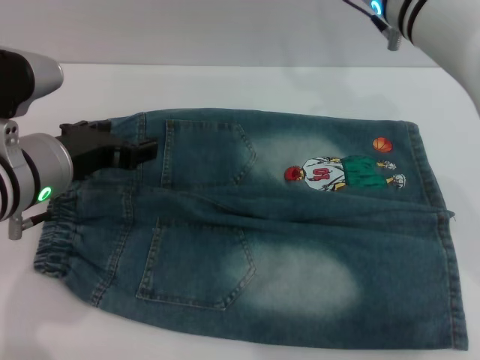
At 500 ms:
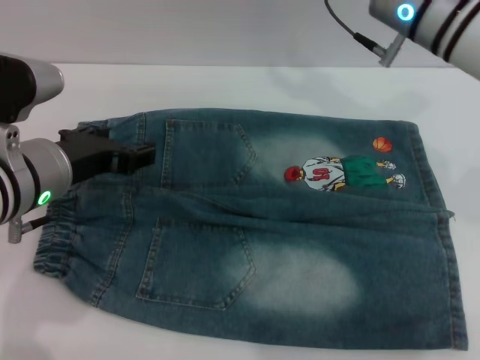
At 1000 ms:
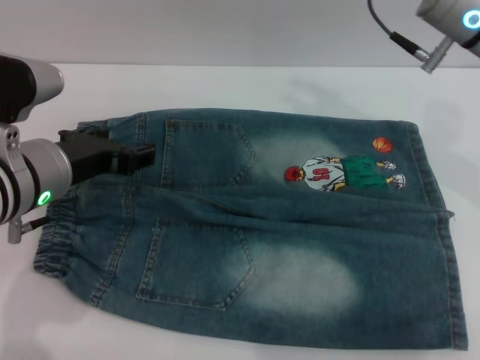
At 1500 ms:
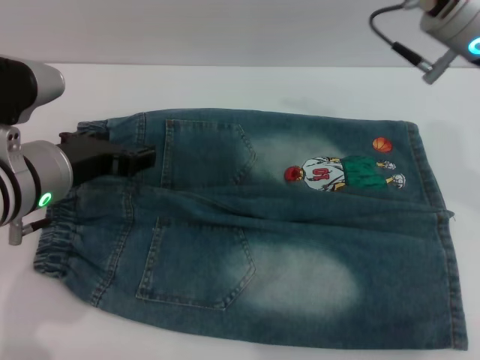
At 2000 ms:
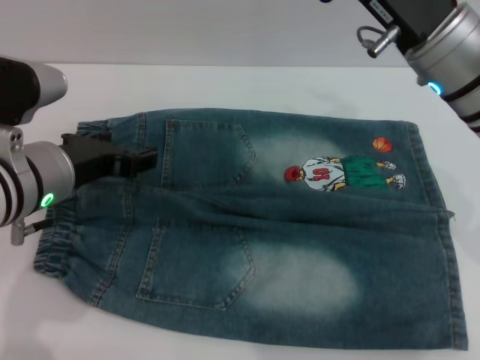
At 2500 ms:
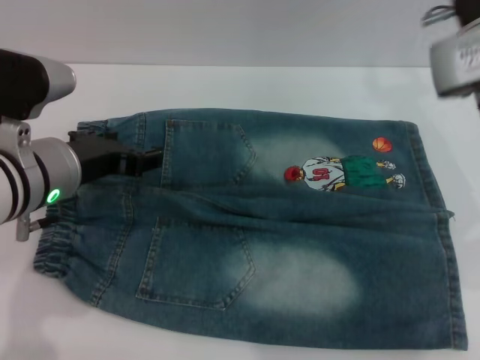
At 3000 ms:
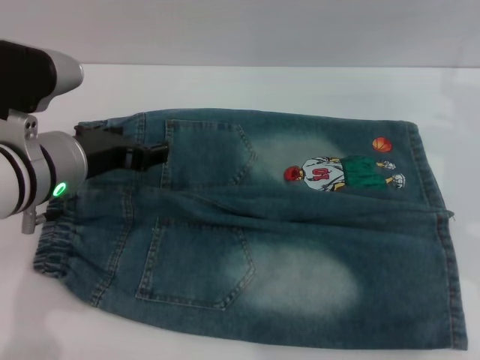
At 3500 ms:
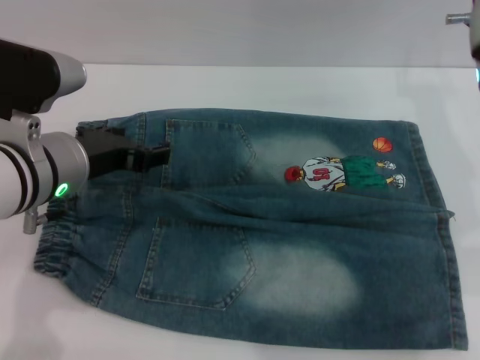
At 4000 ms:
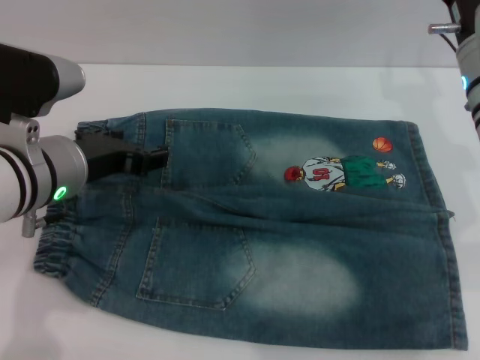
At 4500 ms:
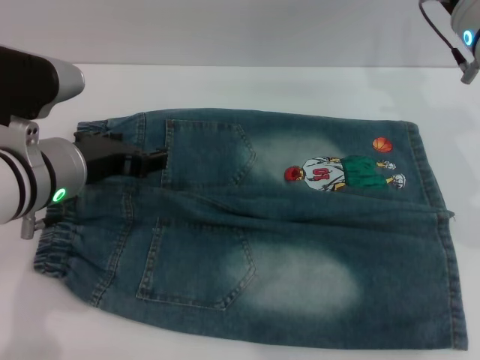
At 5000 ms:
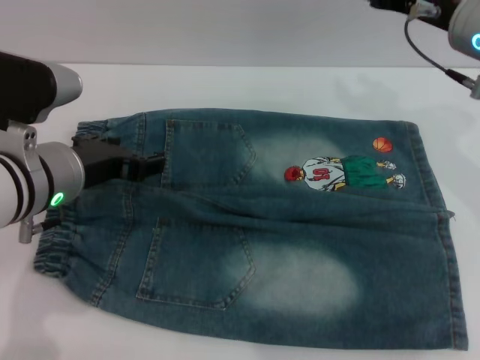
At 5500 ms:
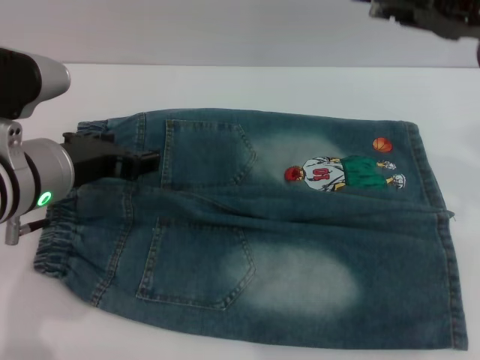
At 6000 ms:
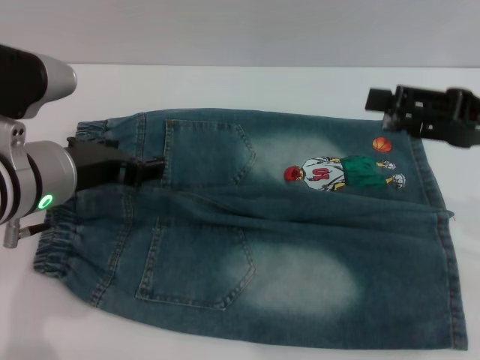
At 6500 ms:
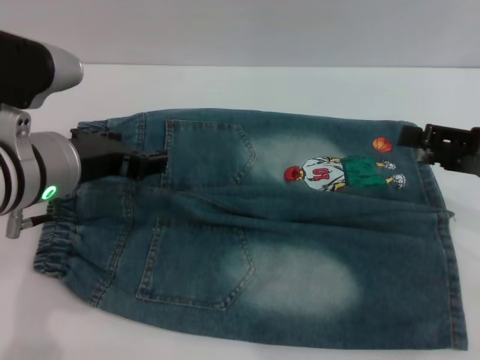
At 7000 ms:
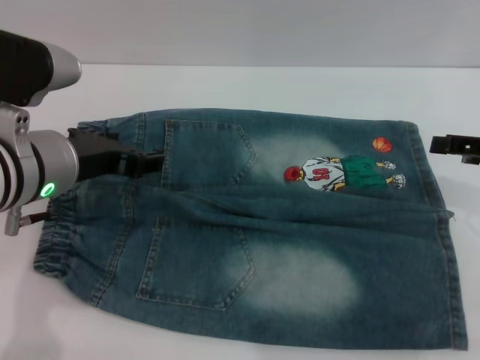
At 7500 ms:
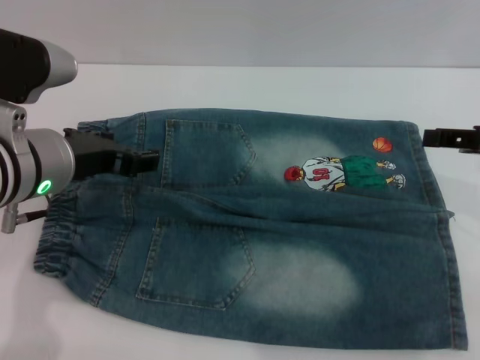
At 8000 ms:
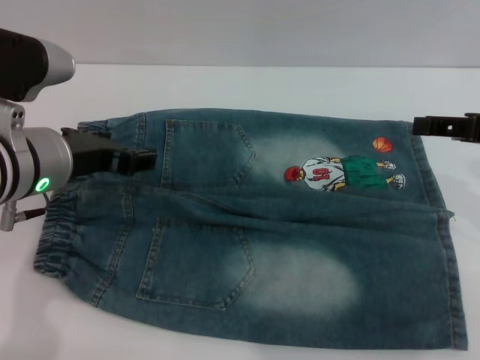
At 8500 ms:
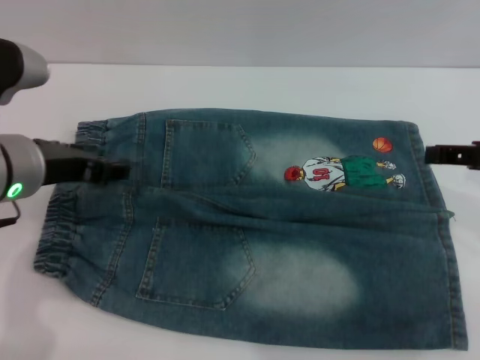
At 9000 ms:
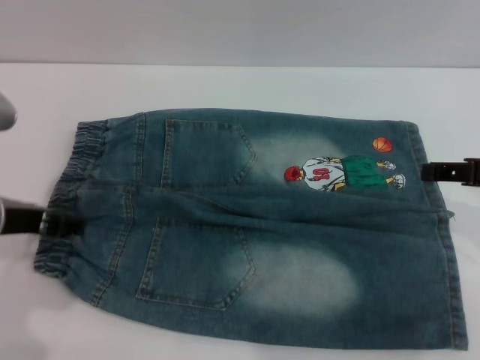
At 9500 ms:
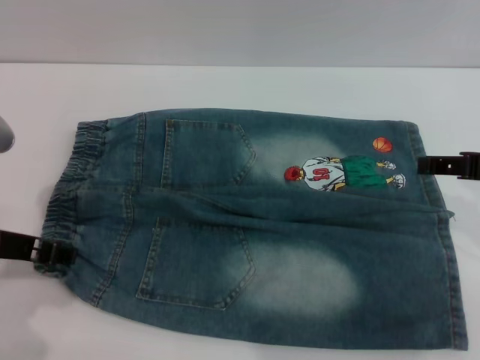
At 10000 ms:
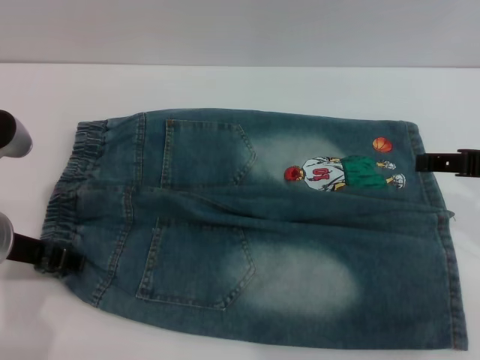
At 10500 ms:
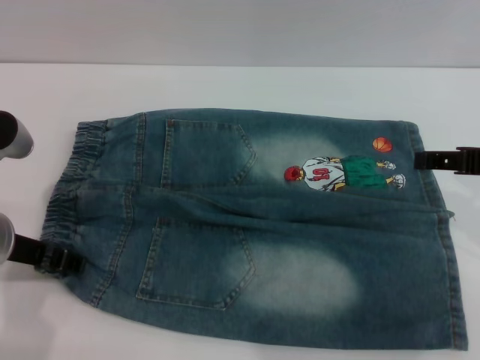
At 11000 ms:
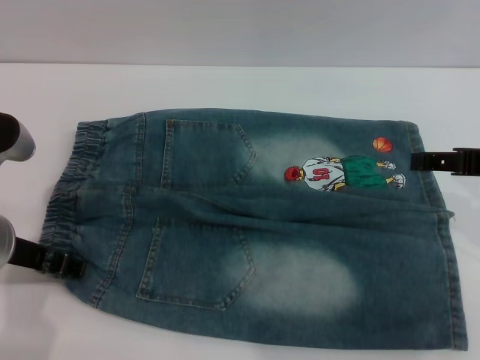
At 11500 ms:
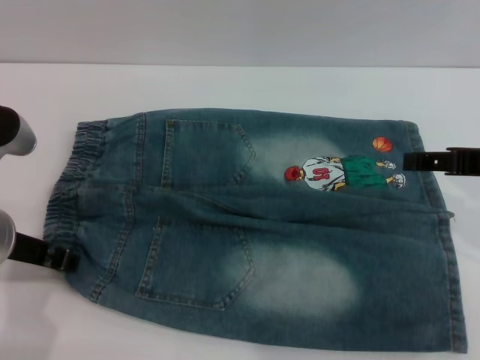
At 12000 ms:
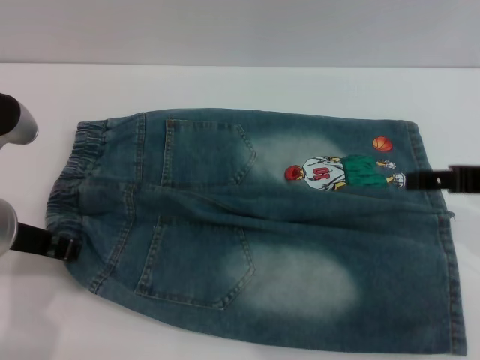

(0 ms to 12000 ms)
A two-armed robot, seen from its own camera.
0 ms - 2000 ms: The right gripper shifts approximately 5 cm backward.
4000 ms - 6000 ms: The right gripper travels backward, to the right and upward by some 15 cm.
8000 ms - 10000 ms: The left gripper changes place by approximately 5 cm.
10000 ms - 12000 ms: The left gripper closes its fingers.

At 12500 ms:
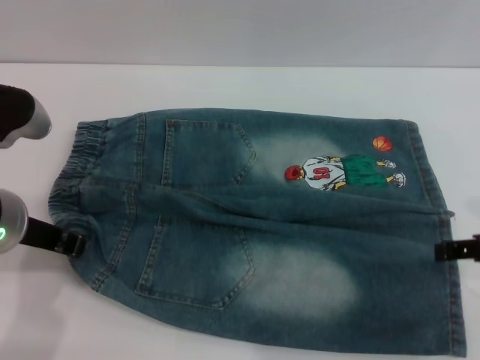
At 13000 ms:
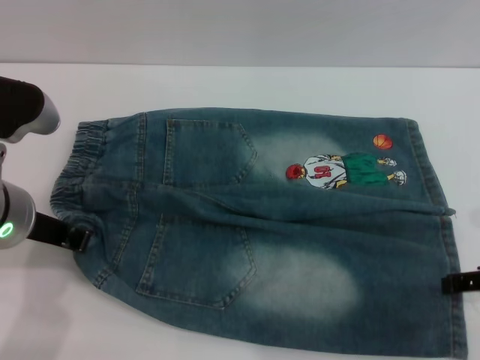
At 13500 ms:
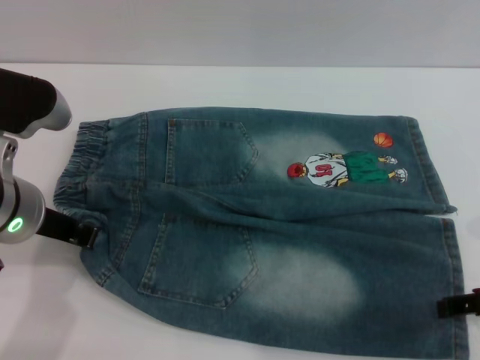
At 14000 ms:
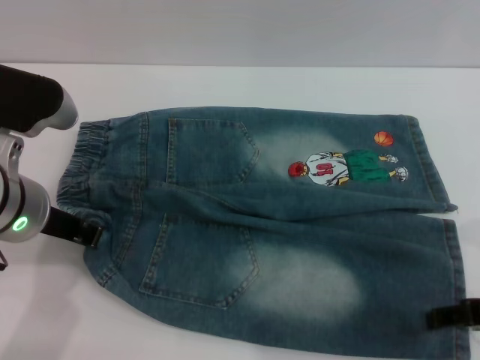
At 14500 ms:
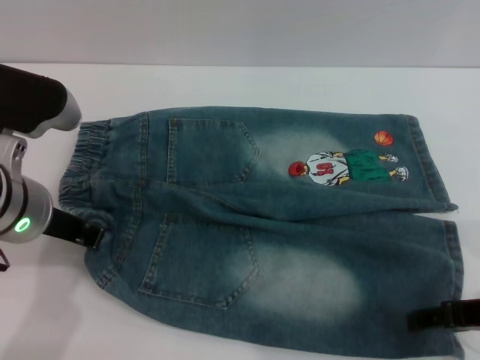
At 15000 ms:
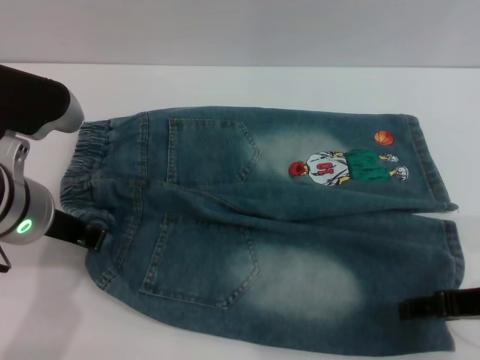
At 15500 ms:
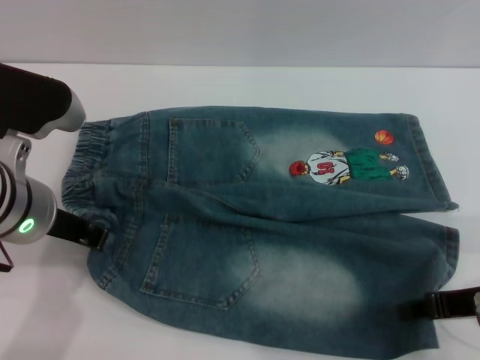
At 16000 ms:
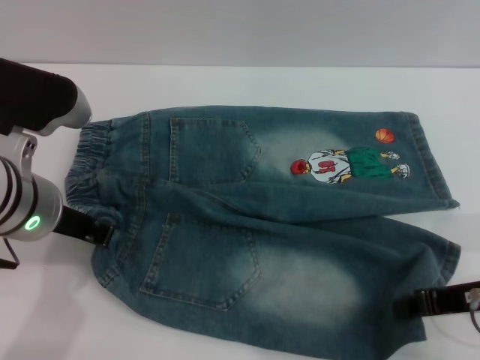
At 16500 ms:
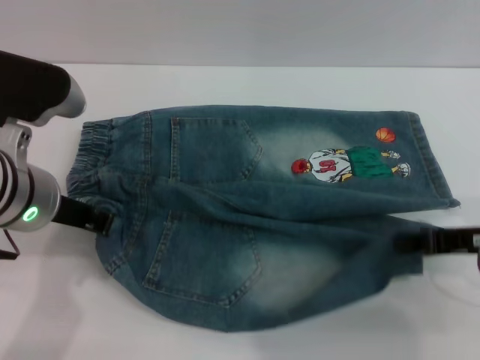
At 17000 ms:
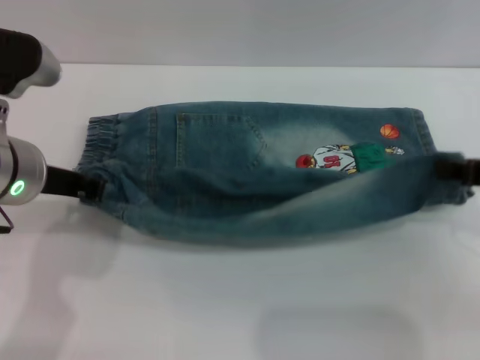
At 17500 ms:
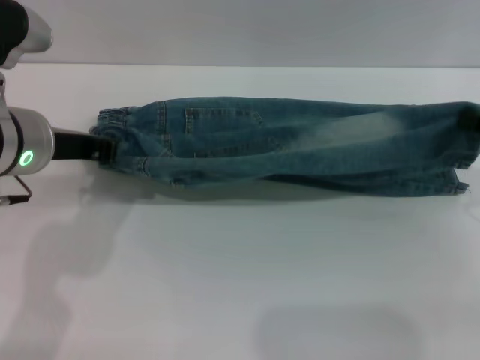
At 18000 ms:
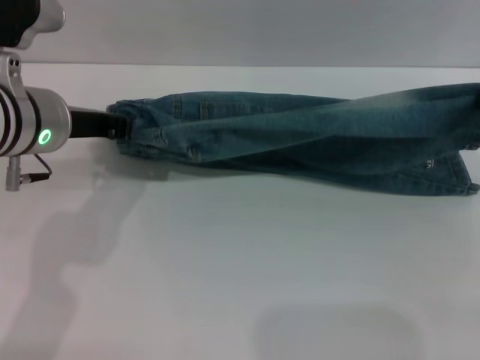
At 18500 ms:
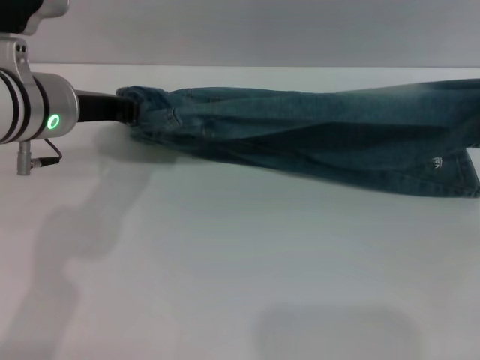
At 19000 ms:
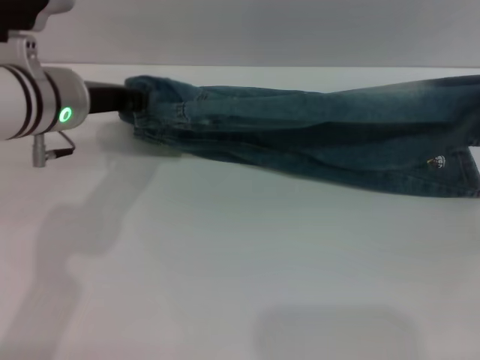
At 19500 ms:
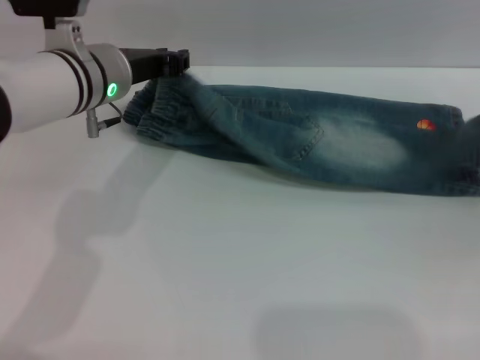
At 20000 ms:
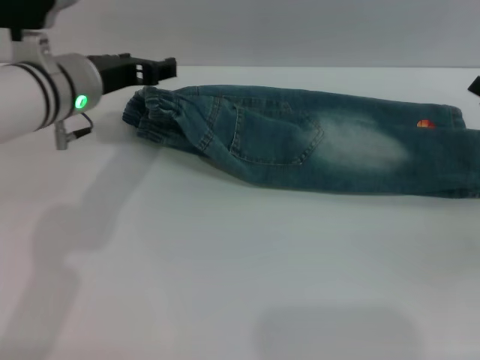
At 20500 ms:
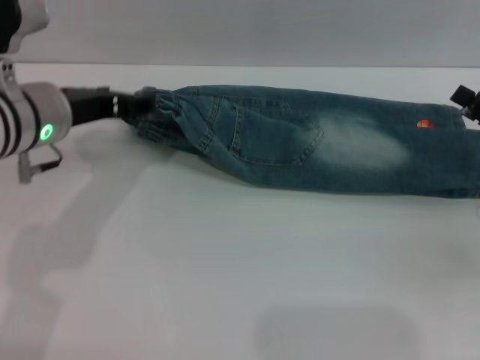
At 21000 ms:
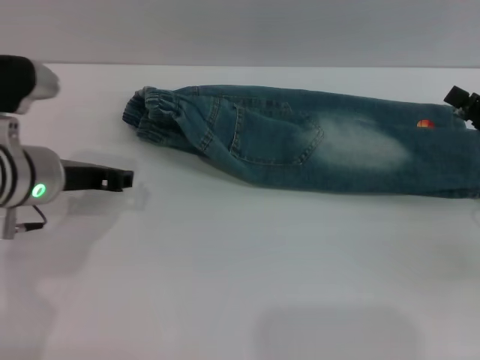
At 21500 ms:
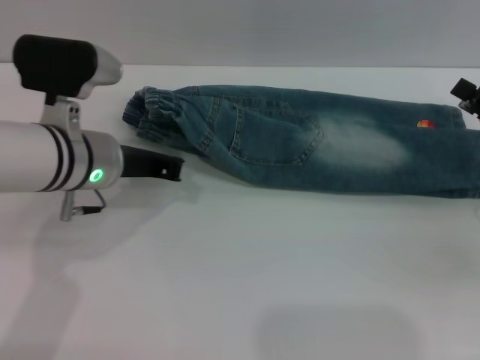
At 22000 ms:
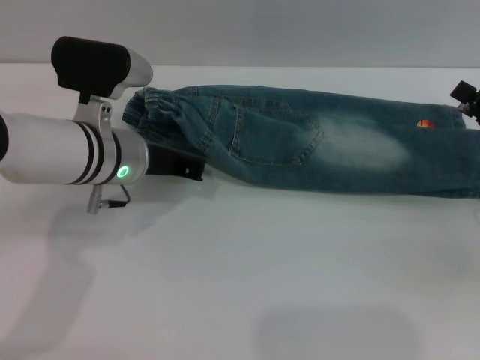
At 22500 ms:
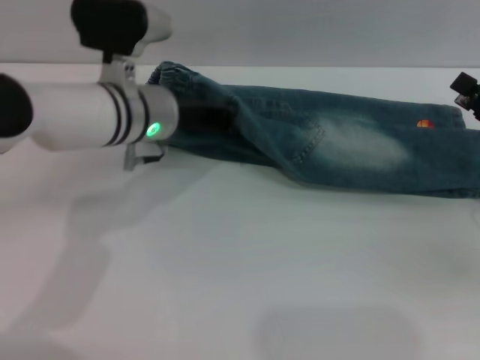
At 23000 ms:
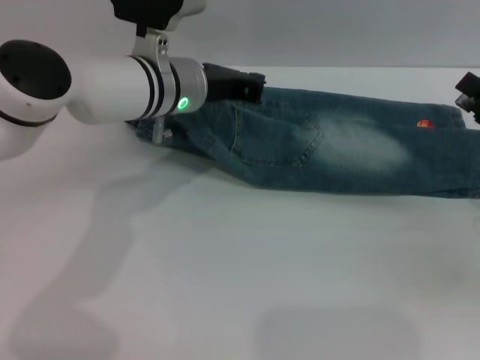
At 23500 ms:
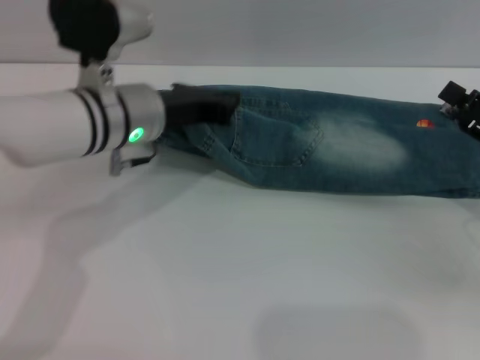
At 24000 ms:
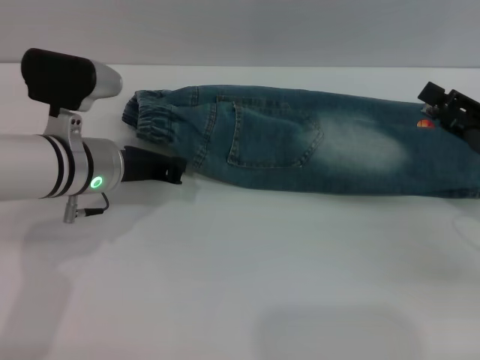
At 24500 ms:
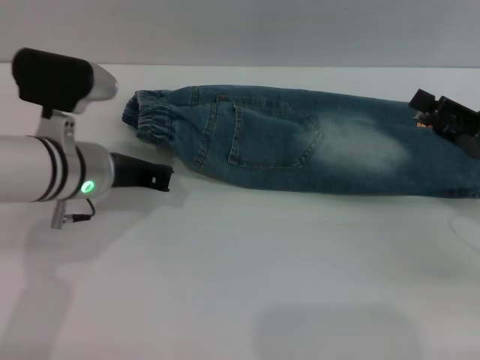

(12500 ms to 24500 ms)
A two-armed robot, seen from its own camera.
Step, 12500 ms - 20500 ms: Fold the bottom of the pants upward with both grippers.
12500 ms - 14500 ms: The right gripper moves about 5 cm.
14500 ms - 16500 ms: The right gripper closes up.
16500 ms - 18500 ms: The right gripper goes roughly 10 cm to the right and forward. Meanwhile the left gripper heads forward, covering about 5 cm.
18500 ms - 20500 ms: The right gripper opens its fingers, while the left gripper opens.
20500 ms - 22500 ms: The left gripper moves to the right, approximately 10 cm, and closes its fingers.
22500 ms - 24500 ms: The left gripper heads to the left and backward, covering about 10 cm.

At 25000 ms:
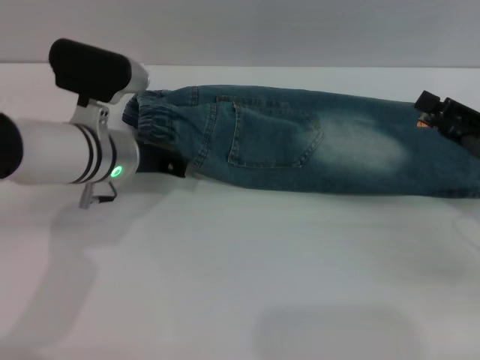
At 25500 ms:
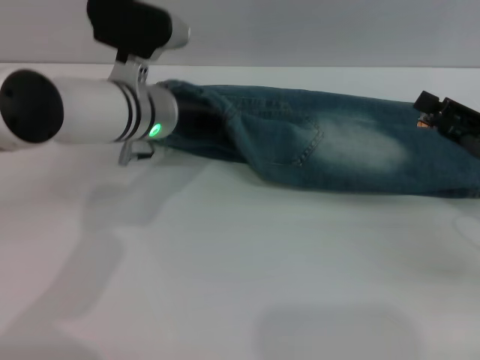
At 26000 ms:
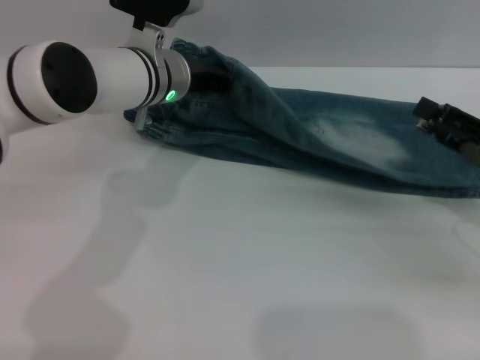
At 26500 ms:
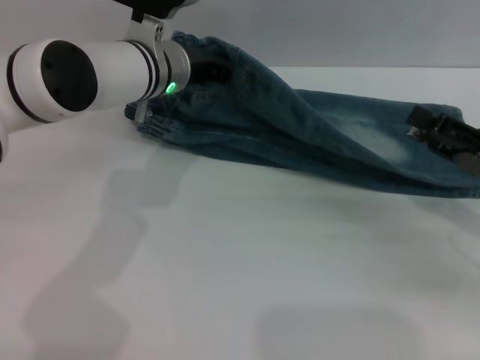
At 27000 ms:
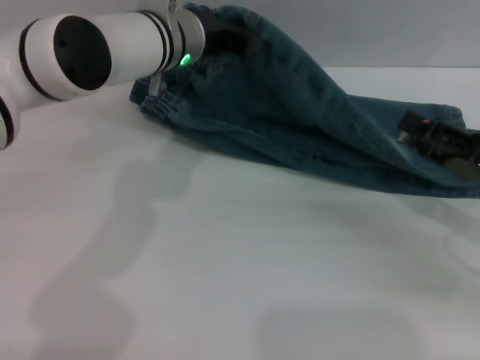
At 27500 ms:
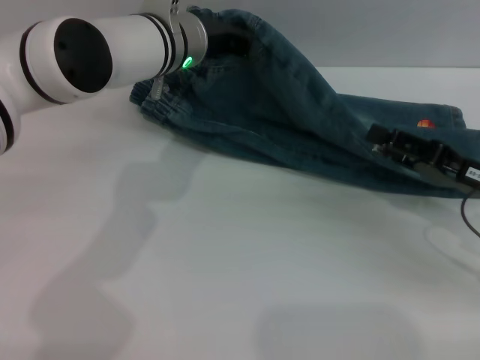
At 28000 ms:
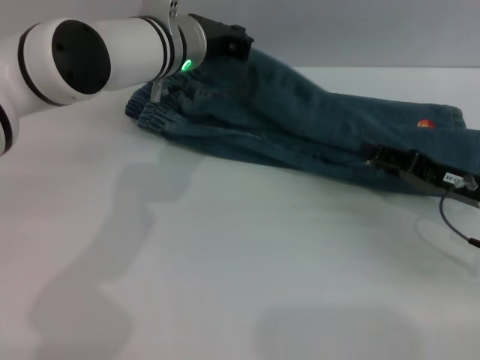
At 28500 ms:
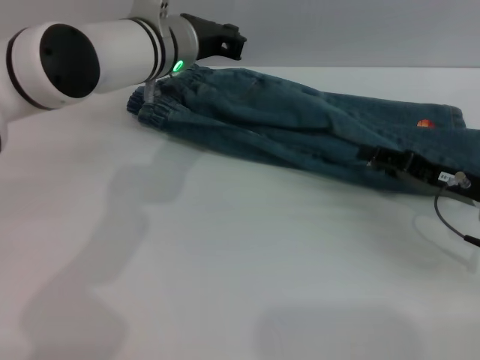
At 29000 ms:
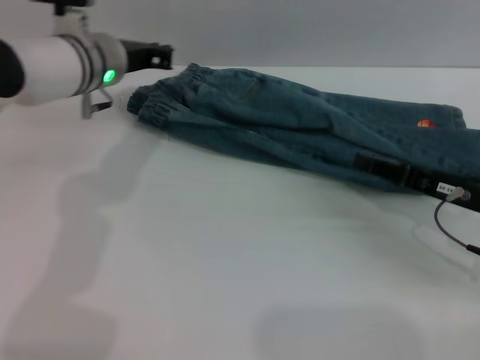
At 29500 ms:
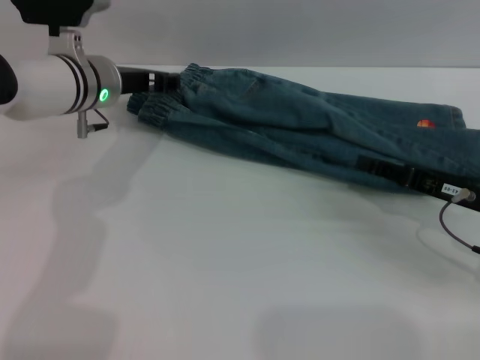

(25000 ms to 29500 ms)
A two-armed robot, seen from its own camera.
25000 ms - 27000 ms: The left gripper heads forward, to the right and upward, covering about 15 cm.
27000 ms - 29500 ms: The right gripper ends up approximately 5 cm from where it was; the left gripper moves to the left, approximately 10 cm, and opens its fingers.
